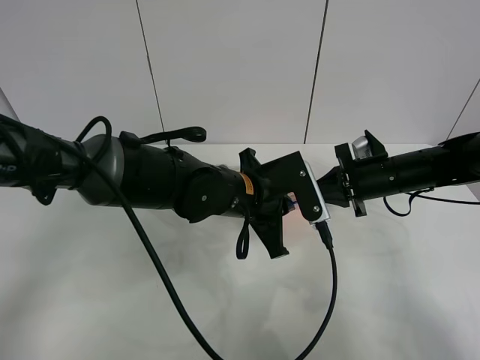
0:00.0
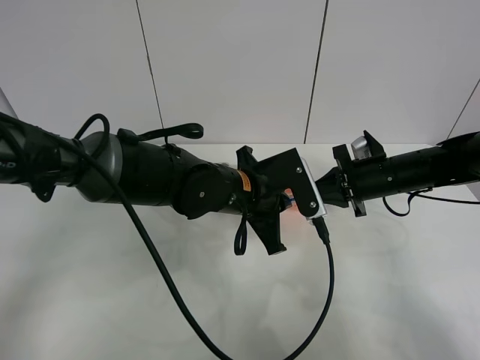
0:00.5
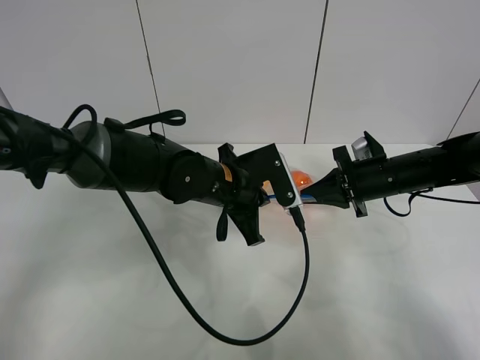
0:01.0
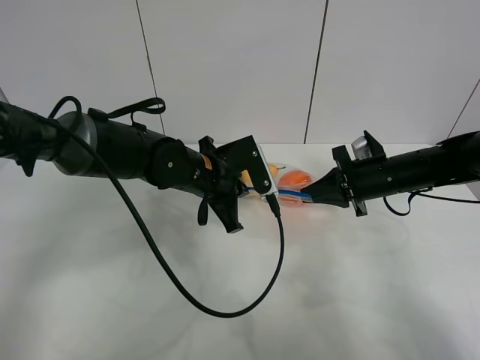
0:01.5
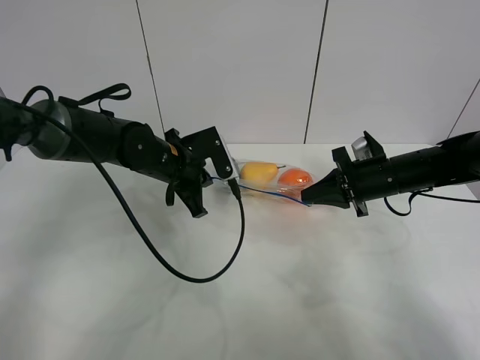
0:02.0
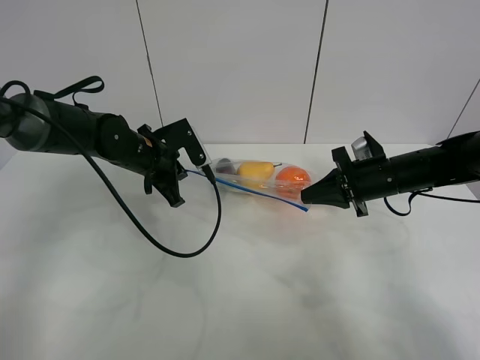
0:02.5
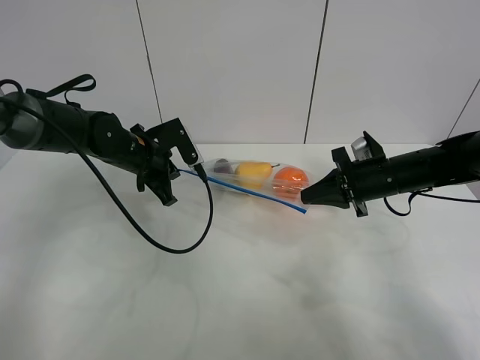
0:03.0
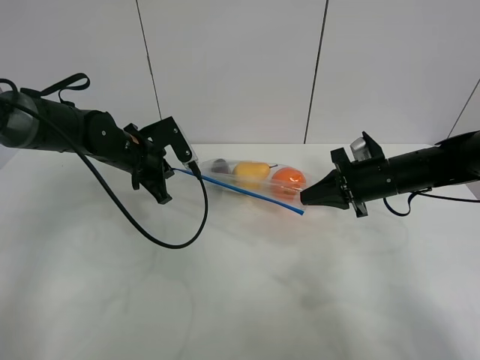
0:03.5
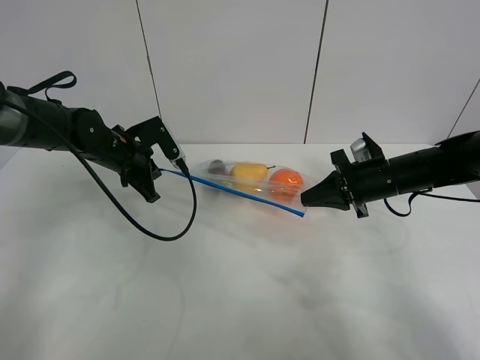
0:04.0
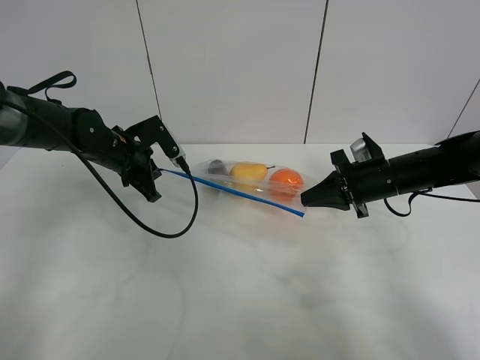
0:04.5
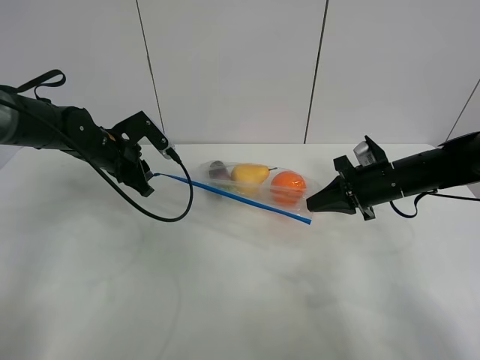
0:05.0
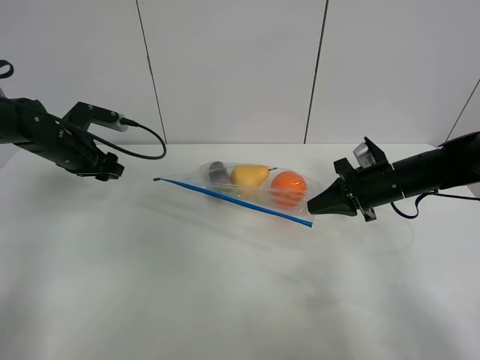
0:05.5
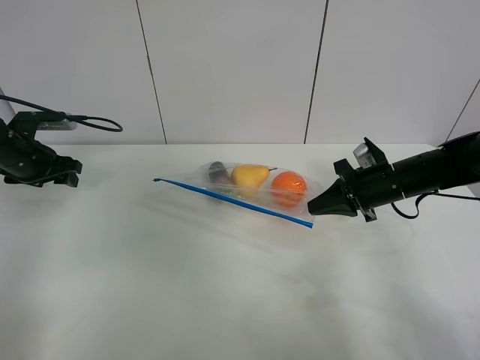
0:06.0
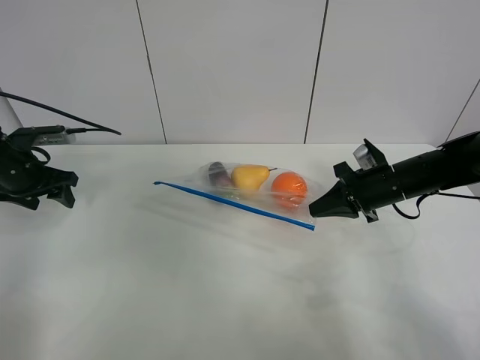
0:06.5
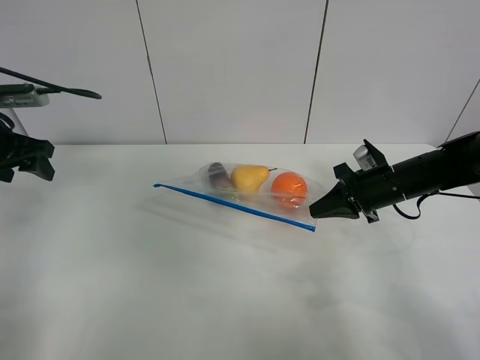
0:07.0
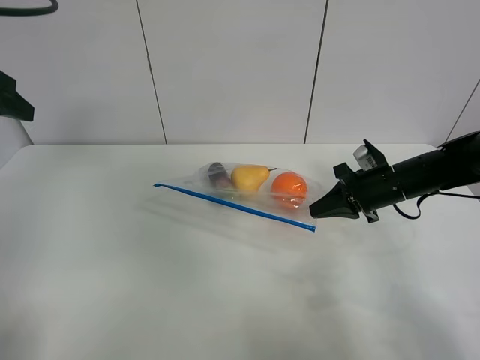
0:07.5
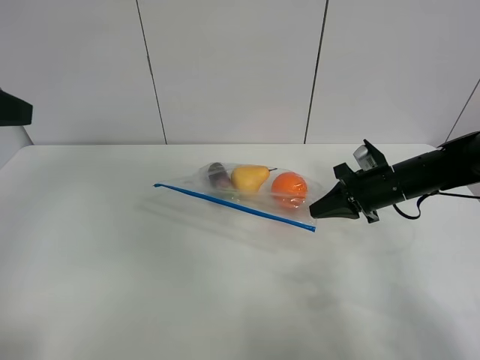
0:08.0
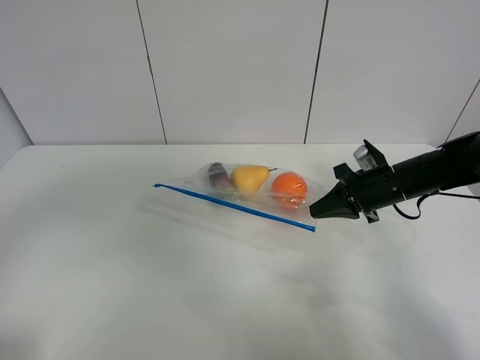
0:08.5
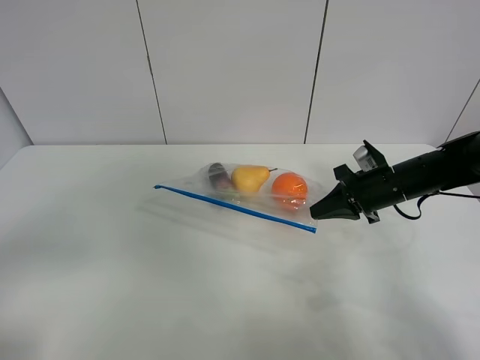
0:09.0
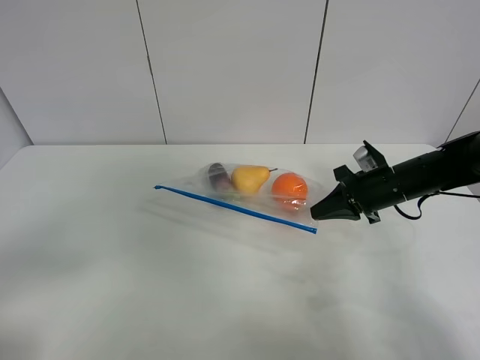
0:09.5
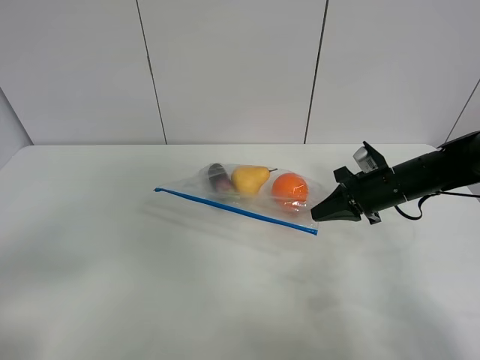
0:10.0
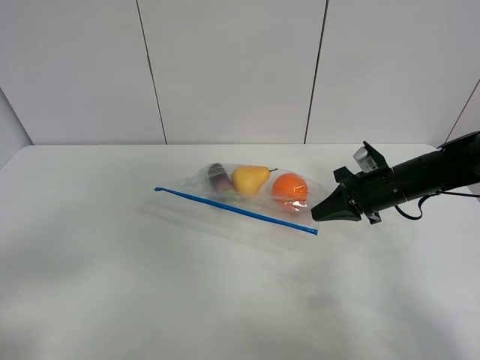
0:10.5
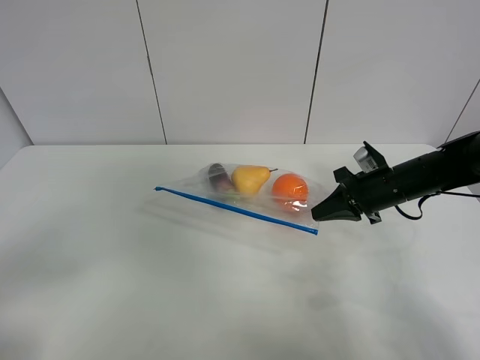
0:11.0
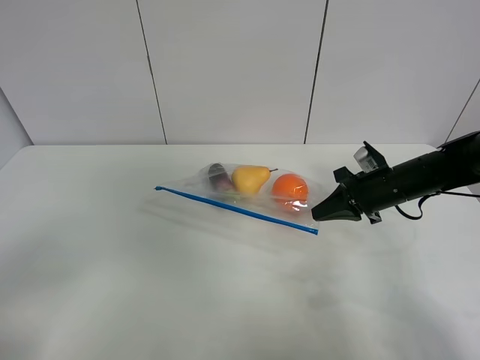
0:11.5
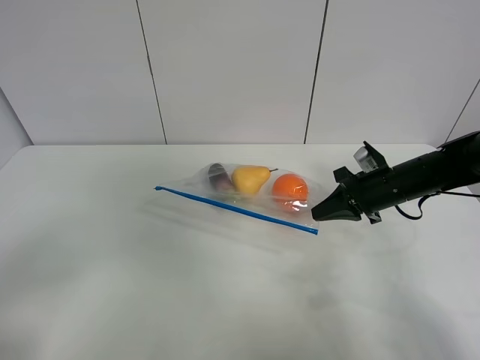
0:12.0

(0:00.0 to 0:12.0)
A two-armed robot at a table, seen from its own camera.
Step, 0:00.0 - 0:05.0: Pull the fruit bag with left gripper.
0:00.0 - 0:02.0: The left gripper travels to the left and forward by approximately 15 cm.
0:02.0 - 0:04.0: The left gripper shifts approximately 10 cm to the left.
0:04.0 - 0:06.0: The left gripper moves to the left, roughly 15 cm, and opens up.
0:06.0 - 0:08.0: The left gripper goes approximately 30 cm upward, backward and to the right.
0:08.0 - 0:10.0: The left gripper shifts roughly 20 cm backward and downward.

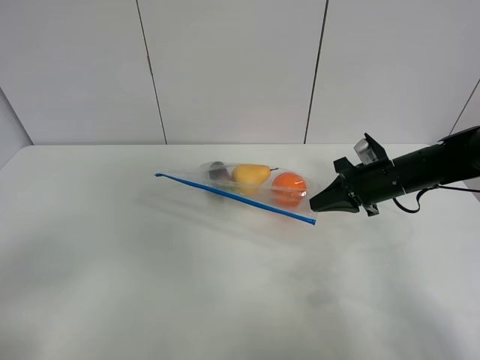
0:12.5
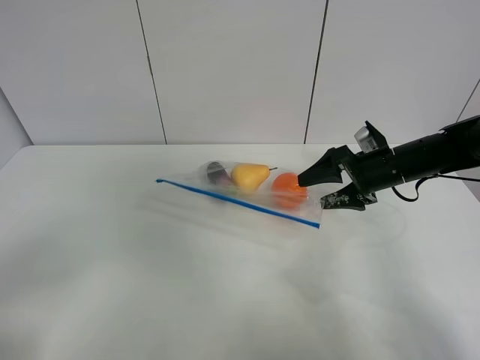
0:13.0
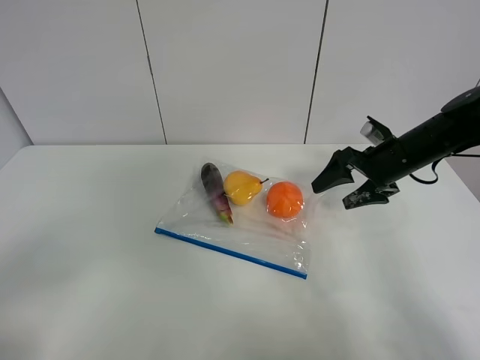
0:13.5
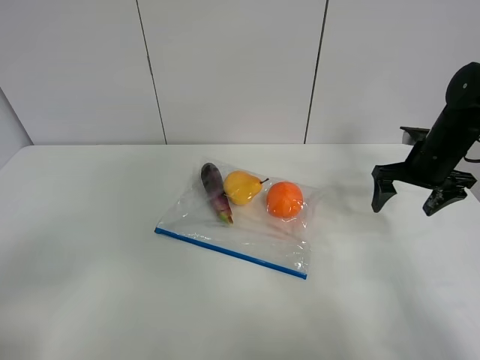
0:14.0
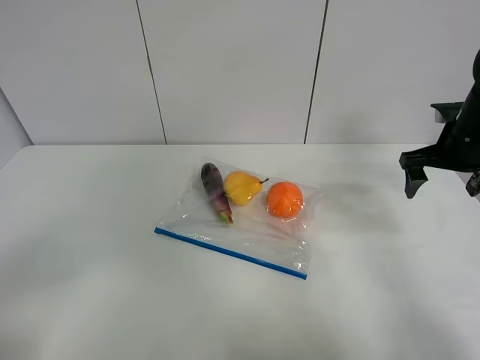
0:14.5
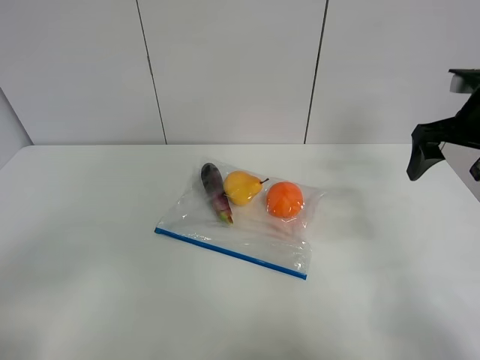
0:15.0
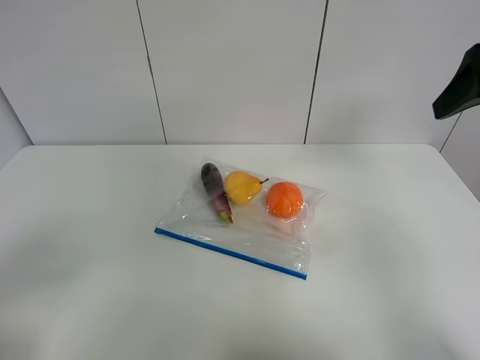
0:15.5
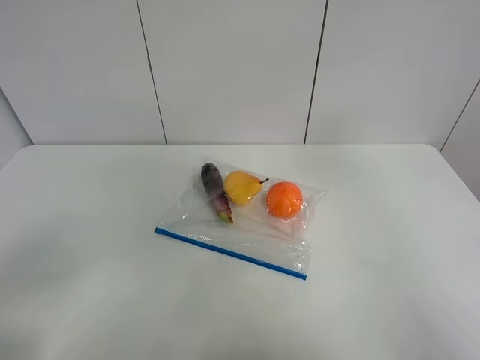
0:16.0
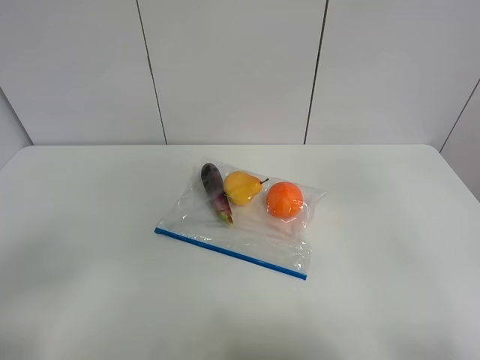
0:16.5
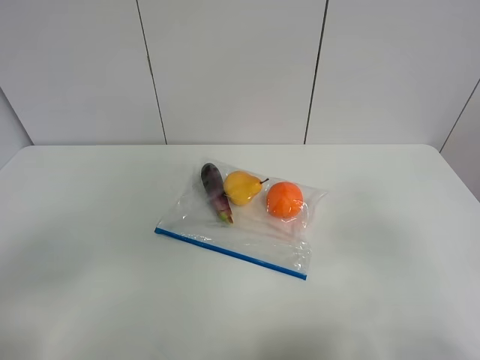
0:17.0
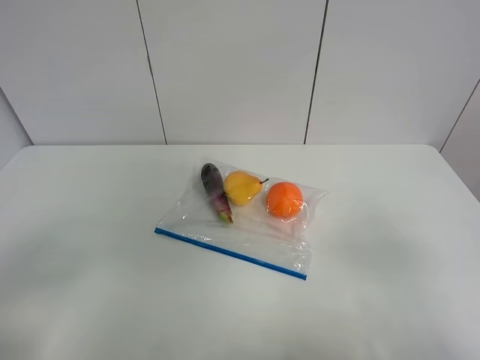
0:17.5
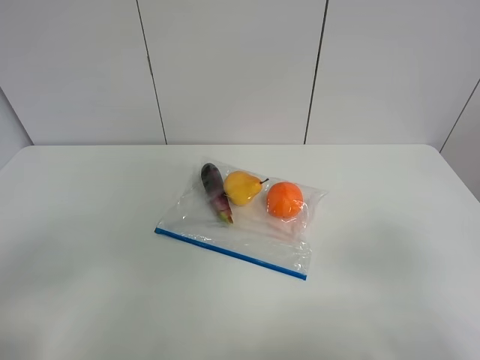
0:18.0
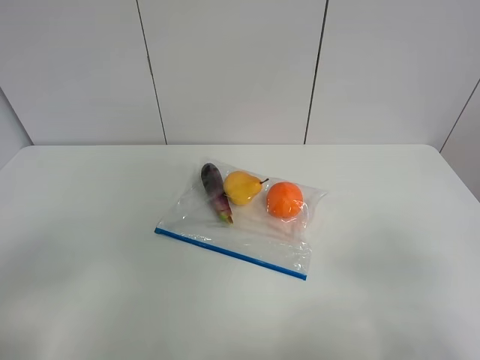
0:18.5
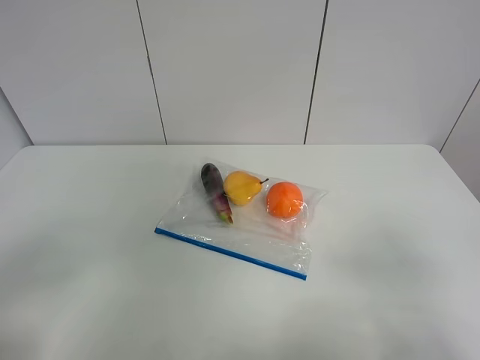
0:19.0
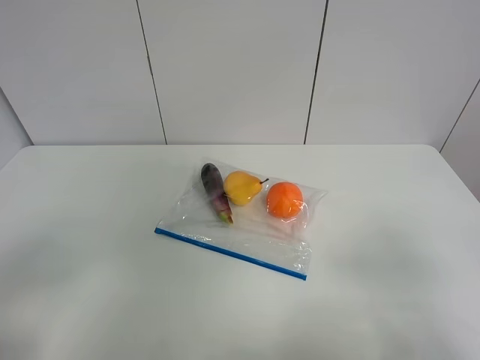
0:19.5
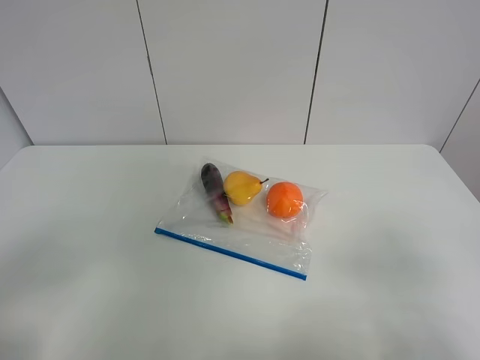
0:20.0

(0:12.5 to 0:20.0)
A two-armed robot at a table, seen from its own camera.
0:12.5 - 0:14.5: The right gripper shifts roughly 10 cm upward and to the right, and opens its fingers.
0:14.5 - 0:16.5: The right gripper goes about 35 cm backward and upward.
0:16.5 - 0:18.0: The right gripper heads downward and backward, covering some 15 cm.

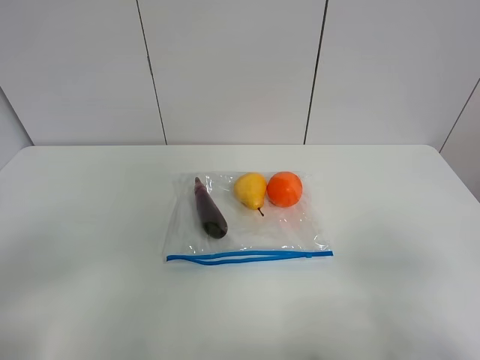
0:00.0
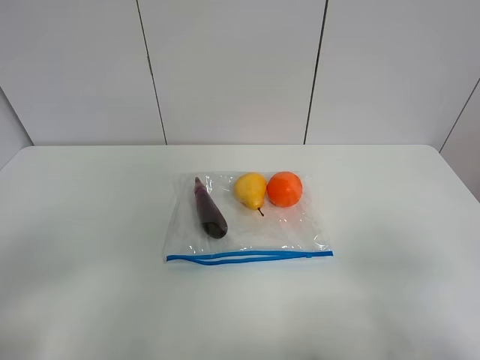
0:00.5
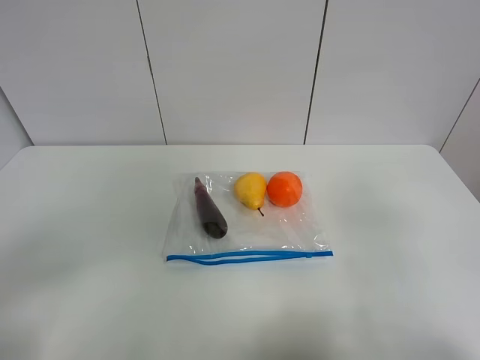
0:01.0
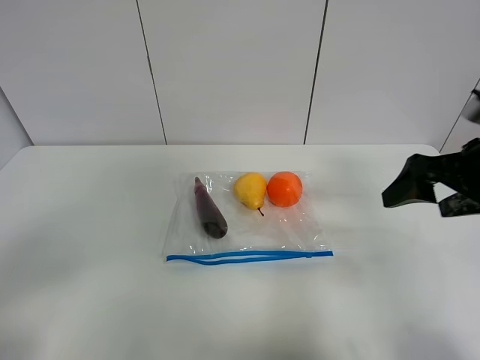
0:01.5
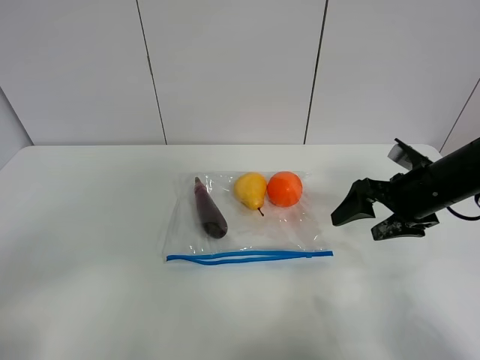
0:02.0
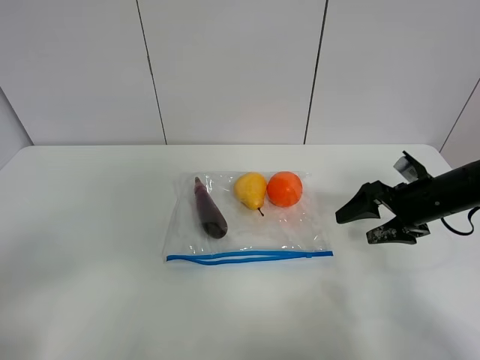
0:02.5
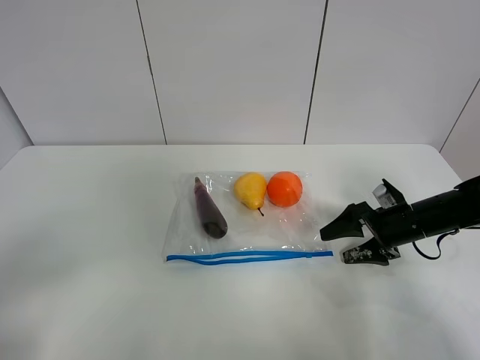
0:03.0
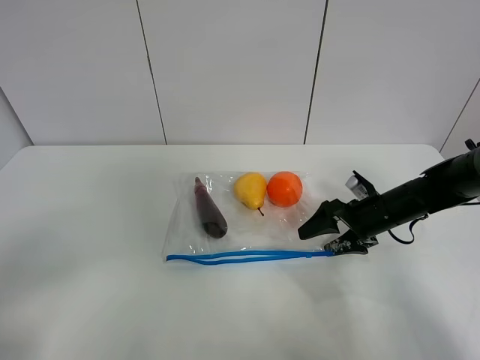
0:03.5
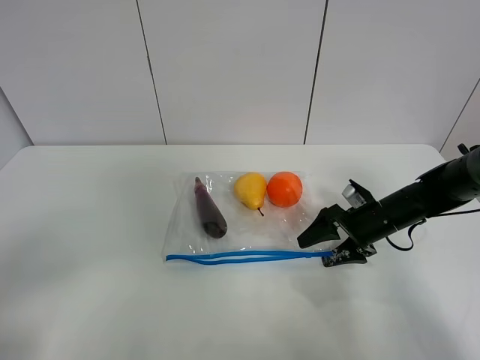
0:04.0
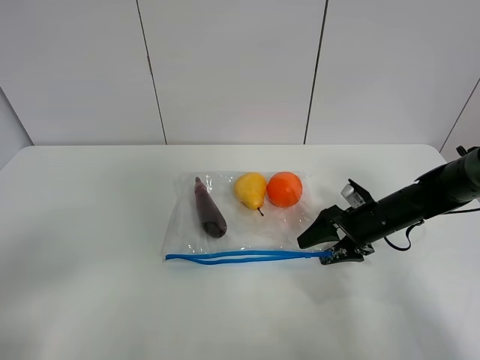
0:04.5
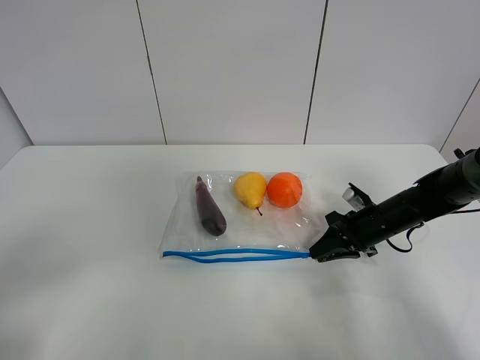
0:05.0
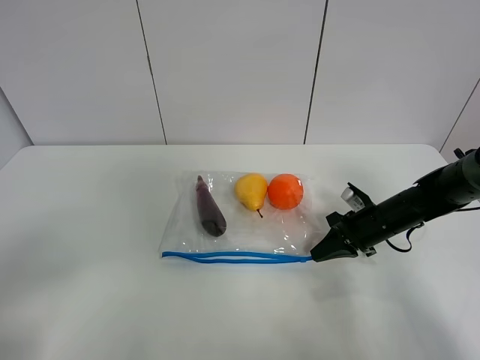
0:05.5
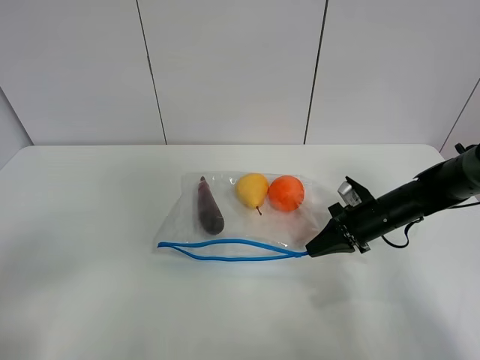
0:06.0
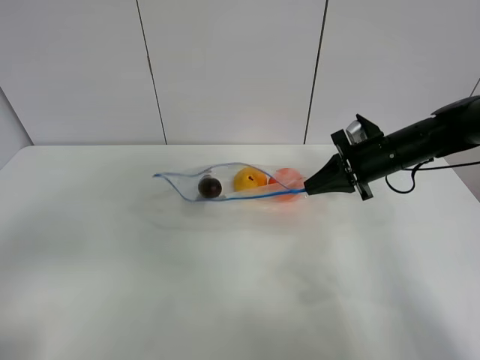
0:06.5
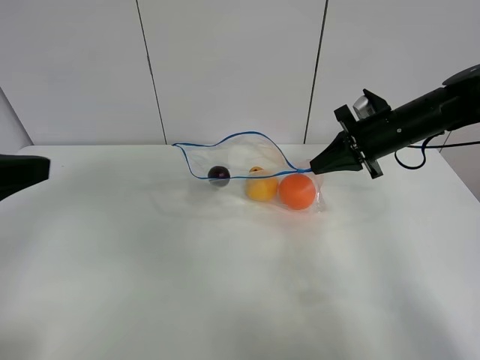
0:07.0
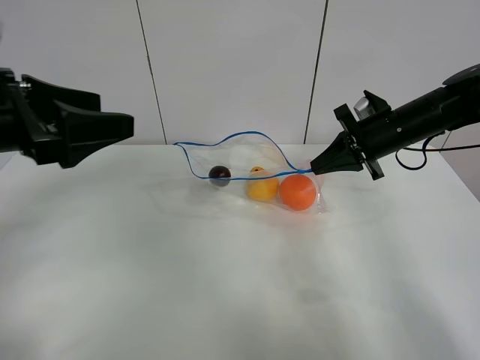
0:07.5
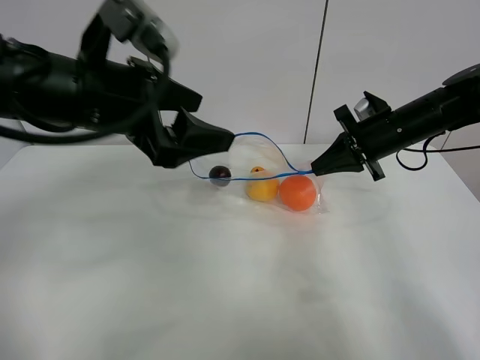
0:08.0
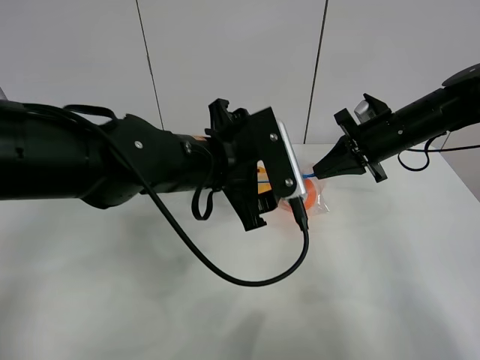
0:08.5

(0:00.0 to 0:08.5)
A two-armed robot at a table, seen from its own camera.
Step, 0:00.0 - 0:05.0: Grasp the fruit bag with right gripper.
Step, 0:05.5 - 0:06.5: Lift the fruit bag with your right gripper.
0:00.0 - 0:02.0: The right gripper goes roughly 30 cm forward.
0:02.0 - 0:04.0: The right gripper heads downward, covering about 10 cm.
0:04.0 - 0:06.5: The left gripper moves some 5 cm; the right gripper shifts some 10 cm upward, and closes.
0:06.5 - 0:08.5: The left gripper heads to the right and forward, covering approximately 35 cm.
